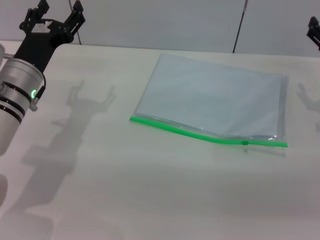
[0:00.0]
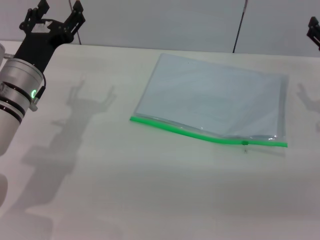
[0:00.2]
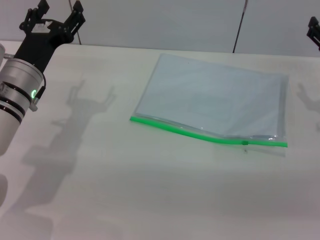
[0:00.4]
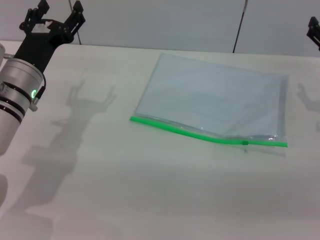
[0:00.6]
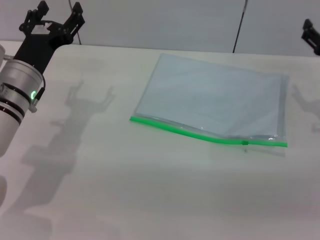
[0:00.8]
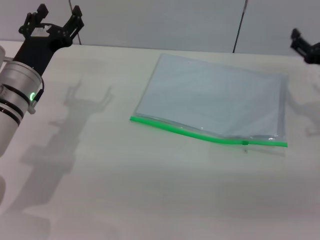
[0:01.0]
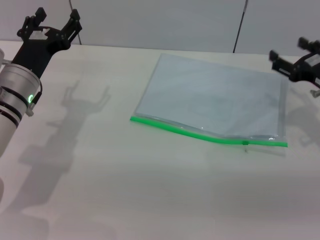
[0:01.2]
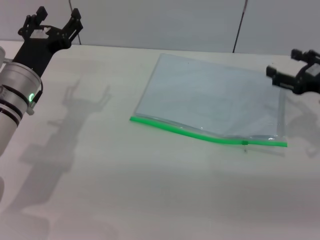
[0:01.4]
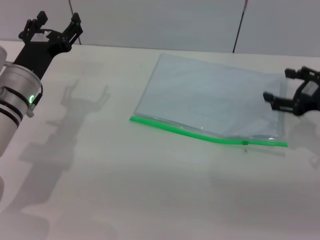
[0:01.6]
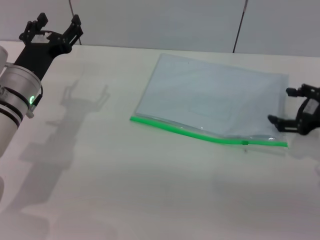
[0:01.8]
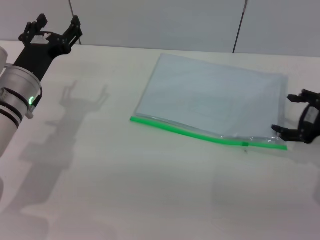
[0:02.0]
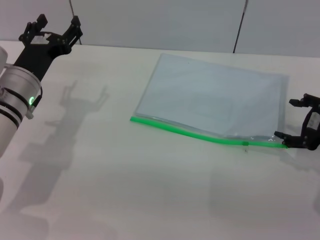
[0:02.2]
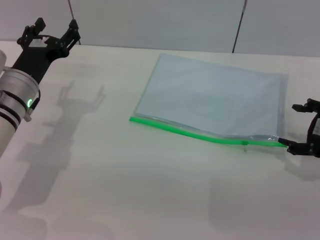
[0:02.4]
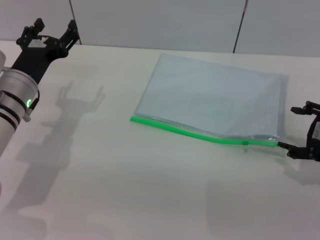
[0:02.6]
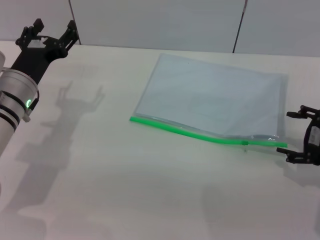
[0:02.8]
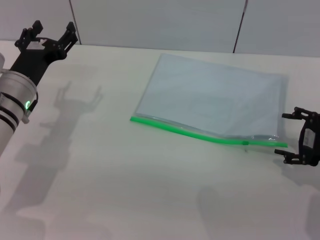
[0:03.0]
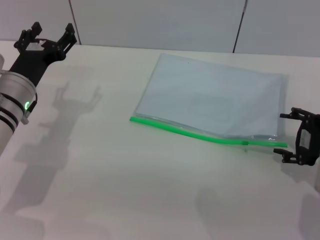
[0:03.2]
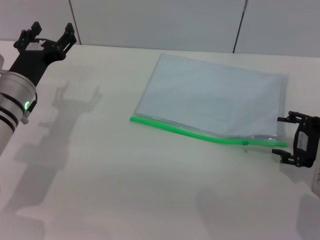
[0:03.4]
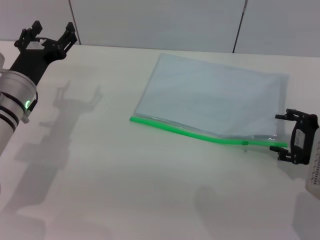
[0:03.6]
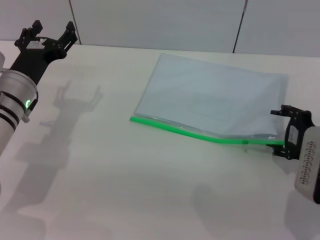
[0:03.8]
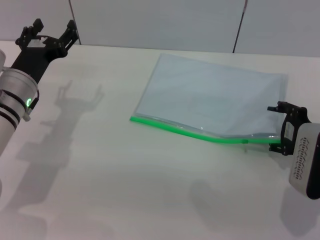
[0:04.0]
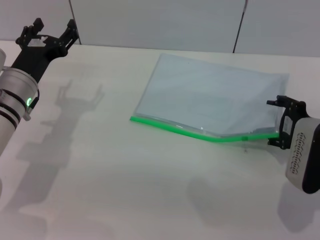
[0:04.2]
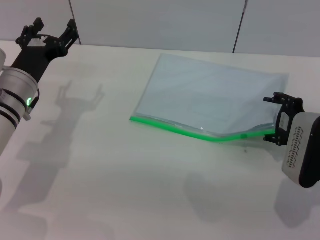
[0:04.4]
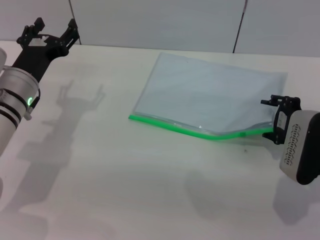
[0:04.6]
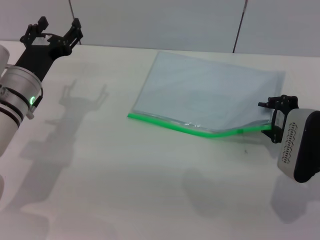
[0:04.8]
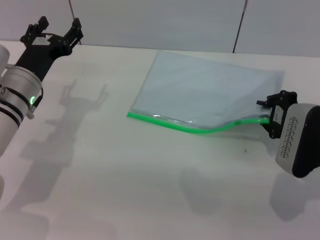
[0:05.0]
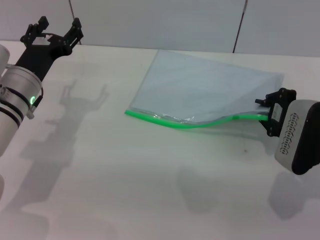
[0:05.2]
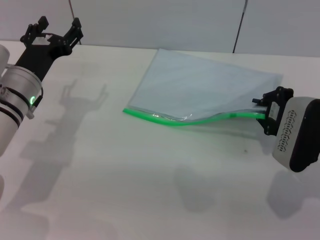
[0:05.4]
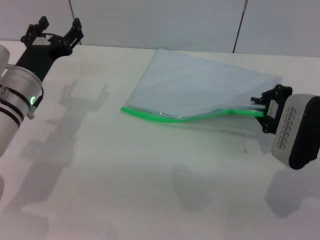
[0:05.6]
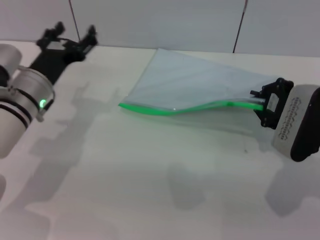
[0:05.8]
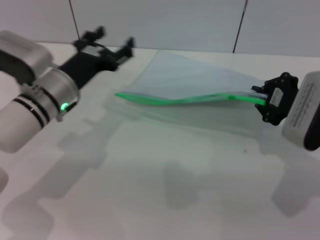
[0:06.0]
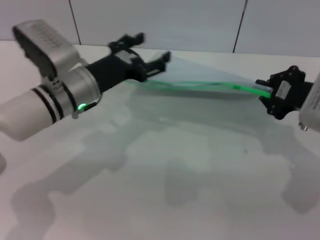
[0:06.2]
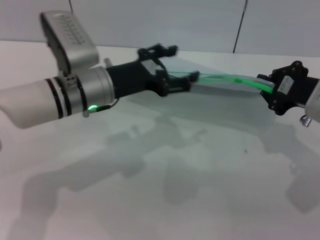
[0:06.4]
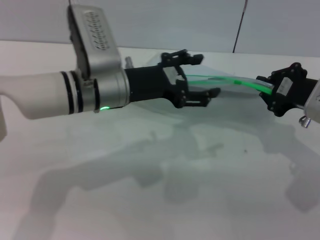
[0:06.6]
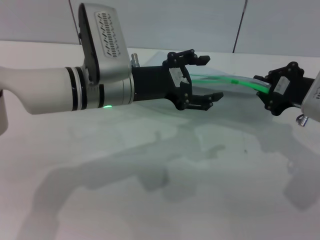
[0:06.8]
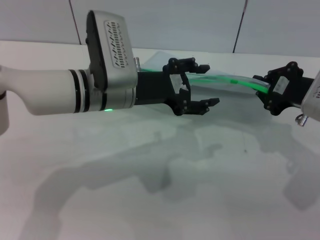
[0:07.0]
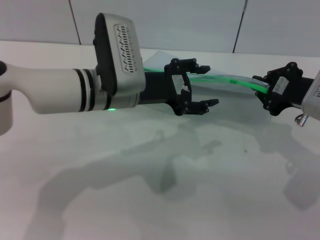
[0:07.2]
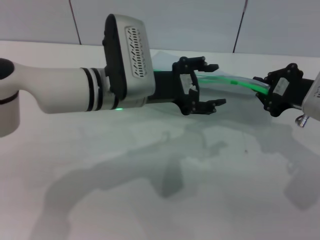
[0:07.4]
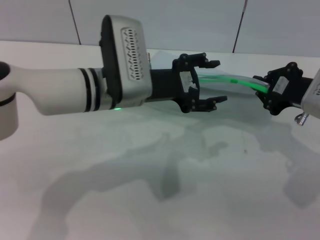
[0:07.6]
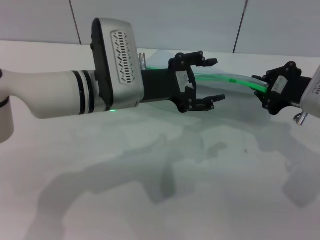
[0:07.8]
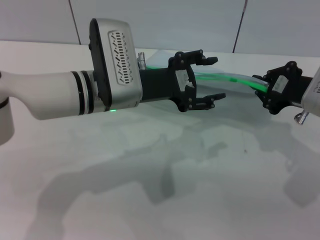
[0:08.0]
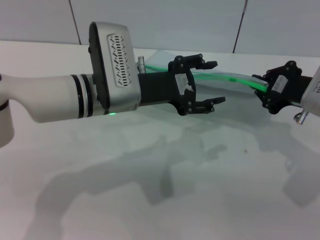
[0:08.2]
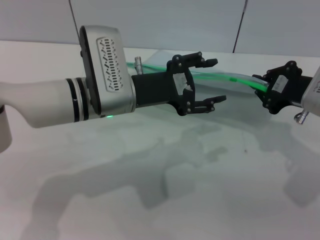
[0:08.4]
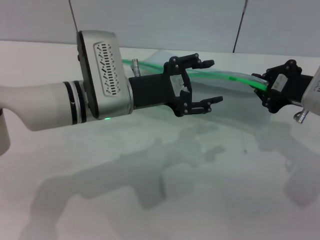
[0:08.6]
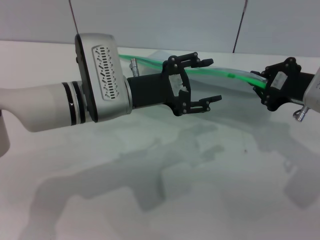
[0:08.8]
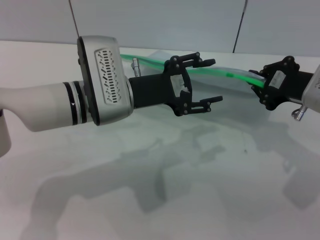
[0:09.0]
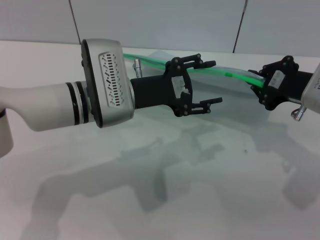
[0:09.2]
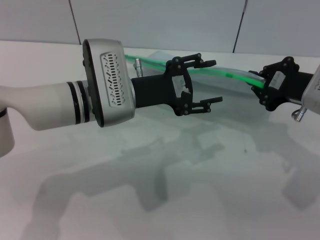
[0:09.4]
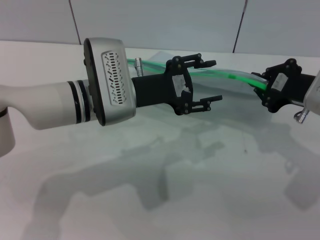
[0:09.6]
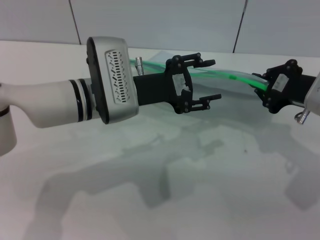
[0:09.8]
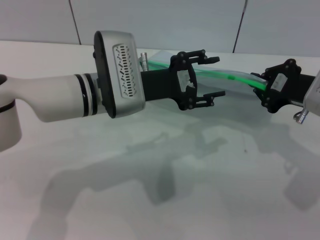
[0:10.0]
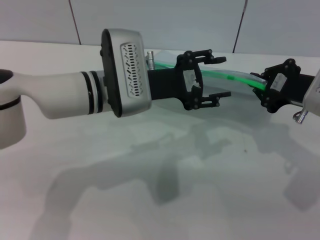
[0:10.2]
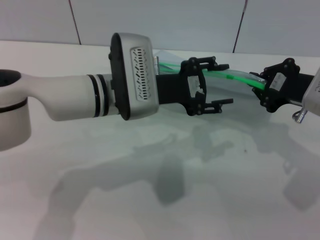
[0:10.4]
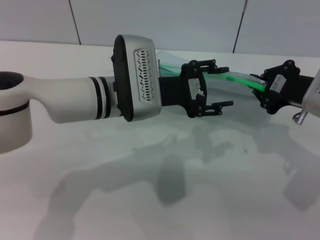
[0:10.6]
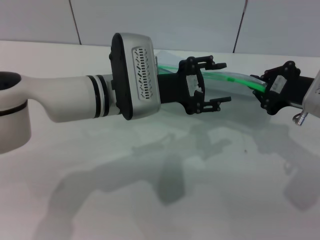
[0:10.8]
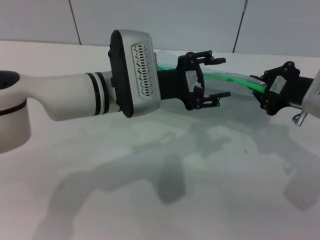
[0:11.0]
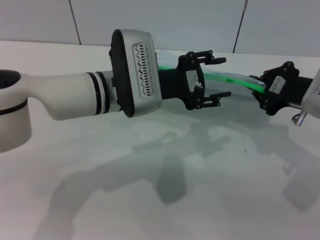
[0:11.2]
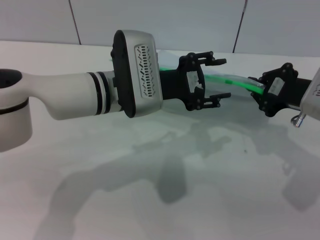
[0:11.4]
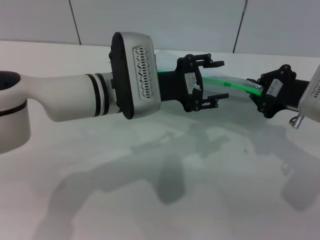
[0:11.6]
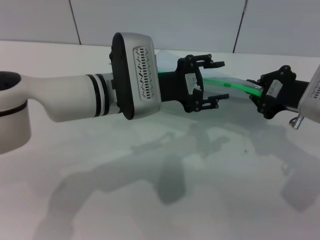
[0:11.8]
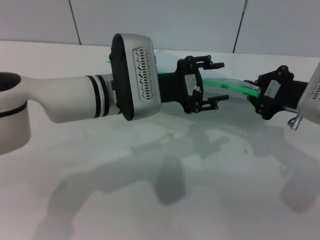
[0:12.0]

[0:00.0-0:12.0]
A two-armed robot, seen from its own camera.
Step, 0:00.0 to 0:06.0: Pick up the transparent plastic bag with the right gripper.
0:01.6 to 0:03.0: The right gripper goes some 5 cm backward.
0:03.0 to 0:04.4: The right gripper ends up some 5 cm from where it was.
0:04.4 to 0:06.0: The right gripper closes up.
0:06.0 to 0:07.6: The left gripper goes about 10 cm to the right and upward.
0:07.6 to 0:10.4: There are only small adjustments of the grippers.
0:10.4 to 0:12.0: Both grippers stay put.

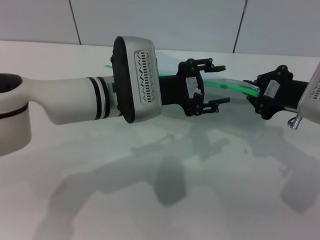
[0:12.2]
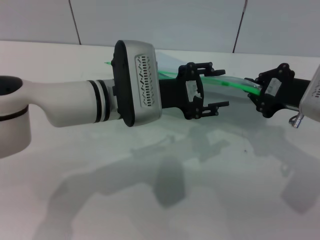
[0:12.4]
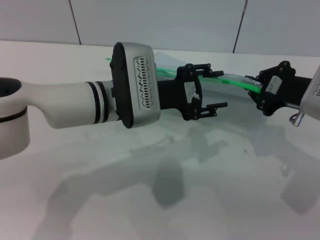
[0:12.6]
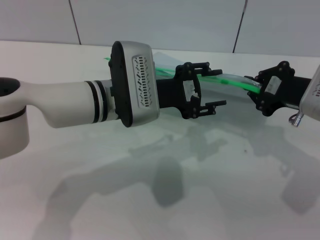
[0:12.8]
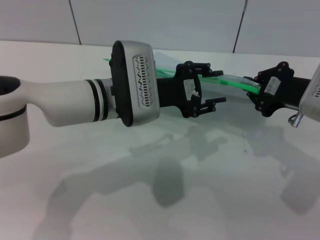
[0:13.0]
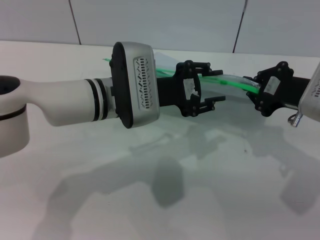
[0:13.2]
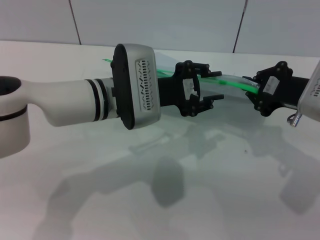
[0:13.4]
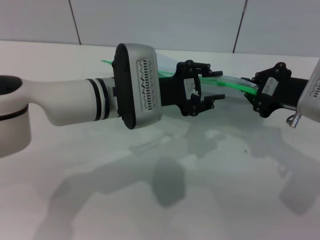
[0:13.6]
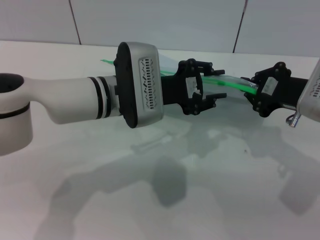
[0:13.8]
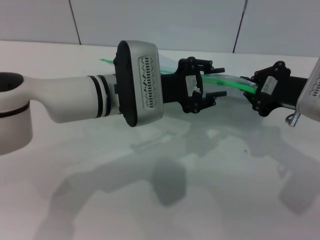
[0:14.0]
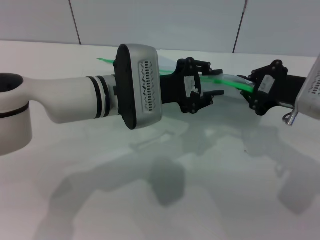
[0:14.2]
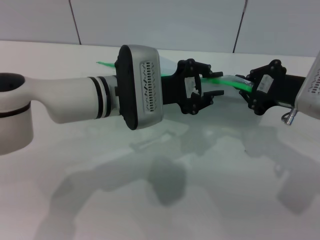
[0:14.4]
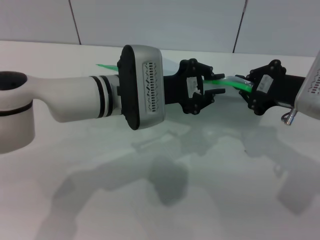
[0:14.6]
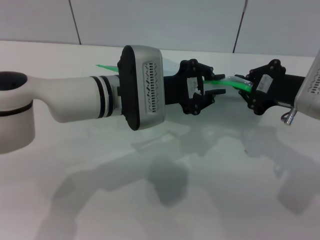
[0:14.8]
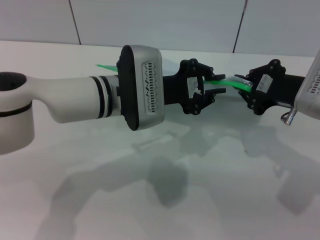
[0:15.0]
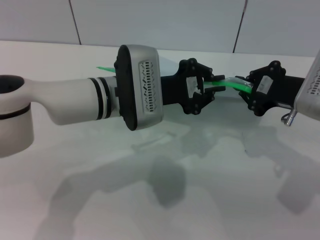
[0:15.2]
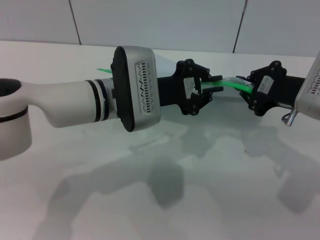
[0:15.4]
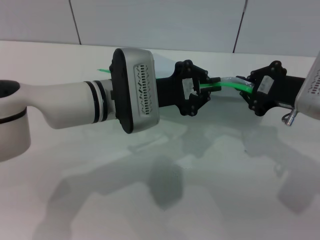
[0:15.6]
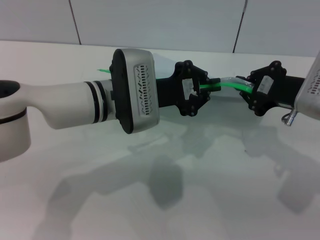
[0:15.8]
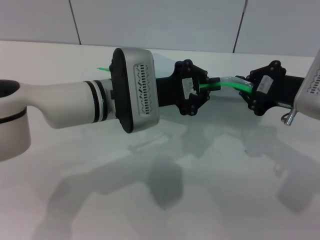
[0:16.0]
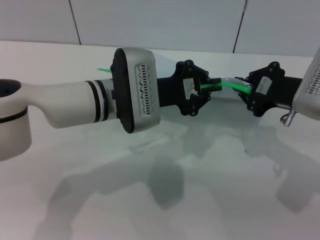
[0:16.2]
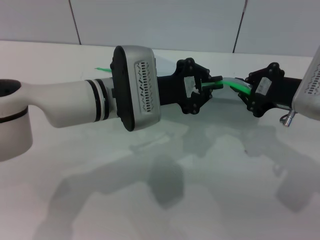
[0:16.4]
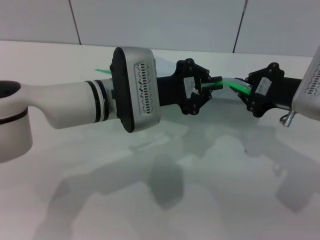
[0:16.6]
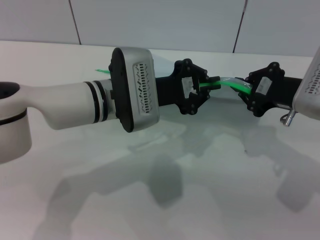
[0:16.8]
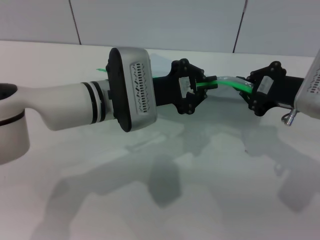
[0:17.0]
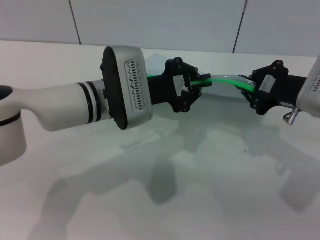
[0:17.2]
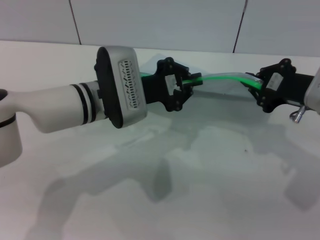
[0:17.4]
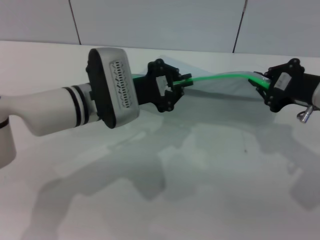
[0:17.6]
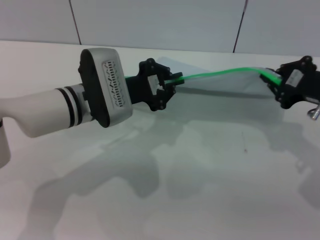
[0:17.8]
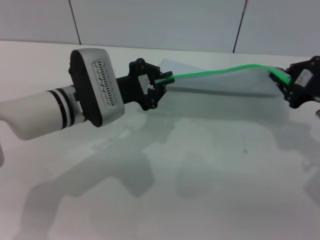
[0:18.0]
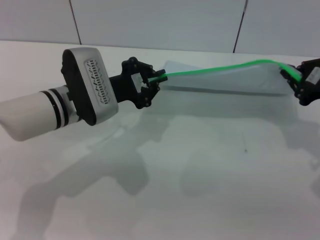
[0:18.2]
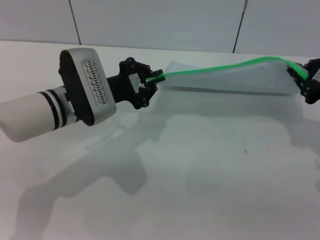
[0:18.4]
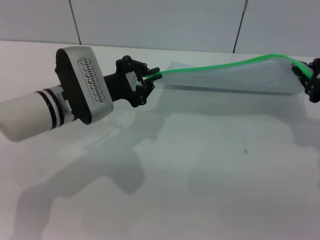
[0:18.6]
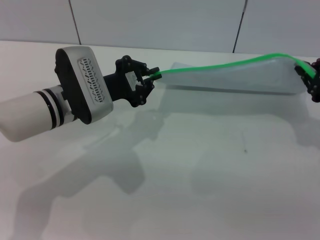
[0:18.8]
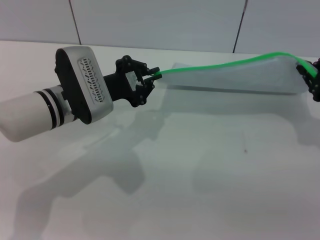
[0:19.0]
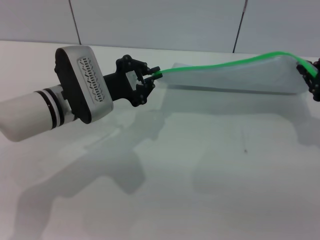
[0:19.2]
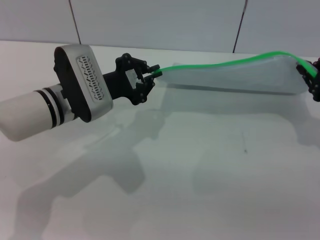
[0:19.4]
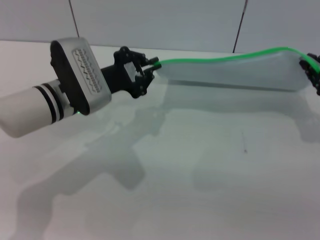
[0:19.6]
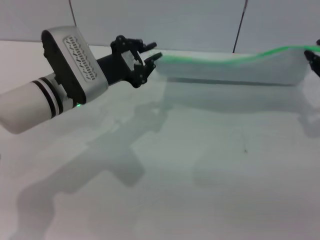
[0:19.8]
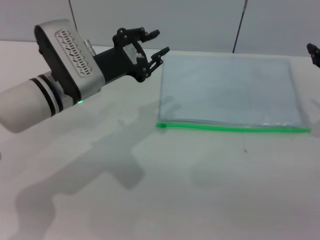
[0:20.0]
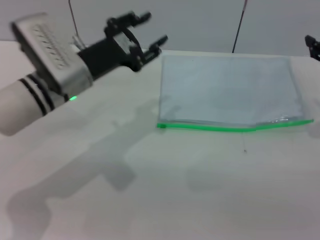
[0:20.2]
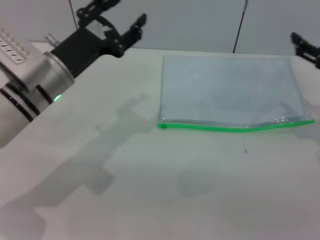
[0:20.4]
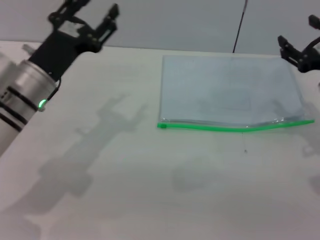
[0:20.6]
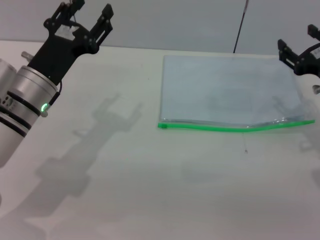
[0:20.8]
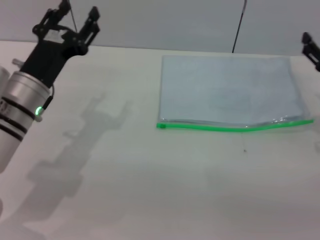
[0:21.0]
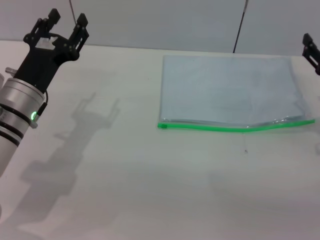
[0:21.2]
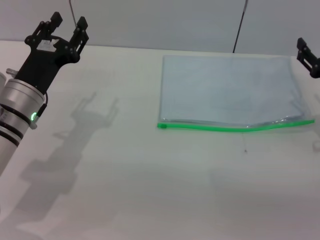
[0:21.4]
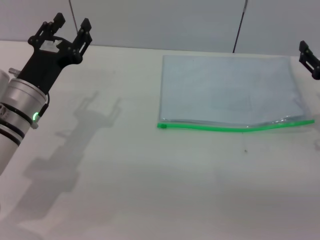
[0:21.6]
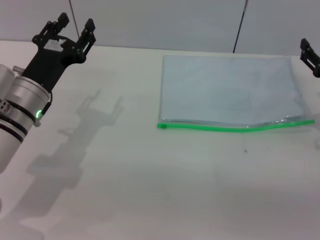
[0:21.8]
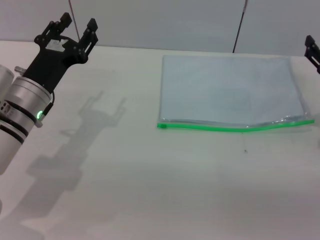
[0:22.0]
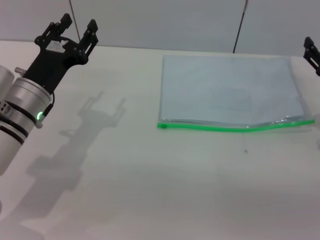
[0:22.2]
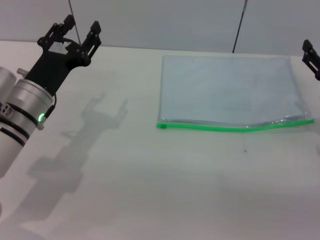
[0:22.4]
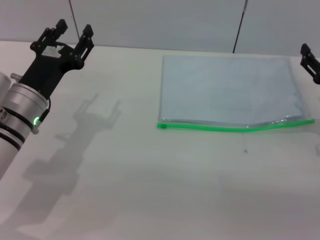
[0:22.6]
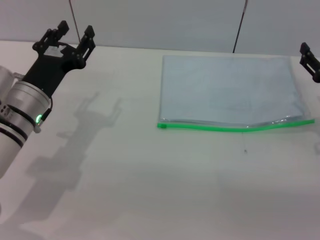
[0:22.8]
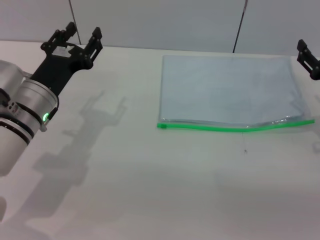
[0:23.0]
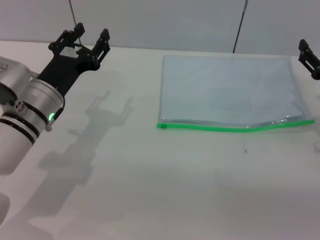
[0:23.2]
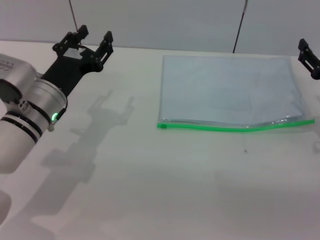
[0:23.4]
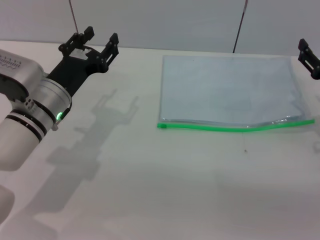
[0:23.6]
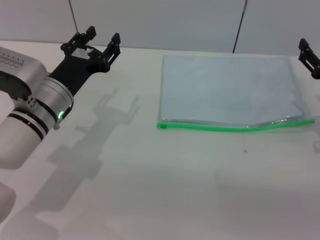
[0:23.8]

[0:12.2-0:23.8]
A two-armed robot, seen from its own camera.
Step, 0:12.2 to 0:20.0: Pulling up the zipper on the transparent plastic bag with the left gripper to close it.
Step, 0:20.4 to 0:21.8: Place the transparent plastic bag.
0:12.2 to 0:13.6: Neither gripper changes place.
0:13.6 to 0:16.6: Both grippers stay put.
0:16.6 to 0:18.0: The left gripper travels to the left by approximately 5 cm.
0:18.0 to 0:19.4: The grippers make only small movements.
0:19.4 to 0:21.0: The left gripper shifts by some 5 cm, and opens up, while the right gripper opens.
0:21.0 to 0:23.8: The grippers stay close to where they were, moving slightly.
